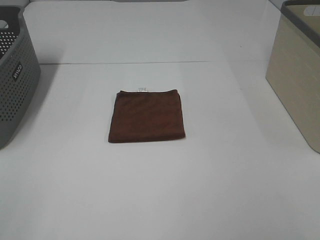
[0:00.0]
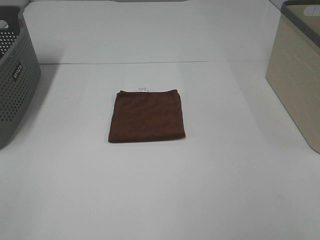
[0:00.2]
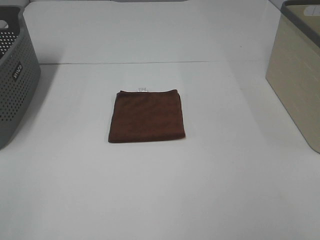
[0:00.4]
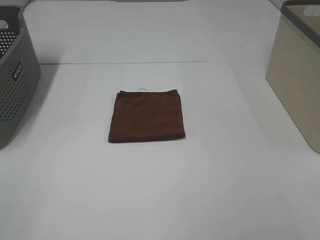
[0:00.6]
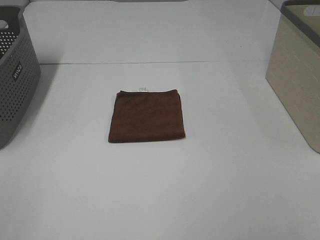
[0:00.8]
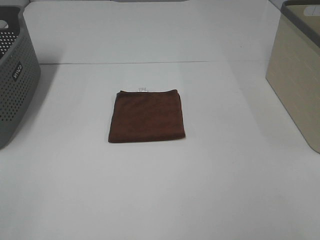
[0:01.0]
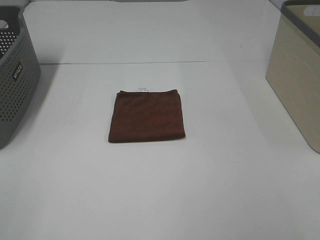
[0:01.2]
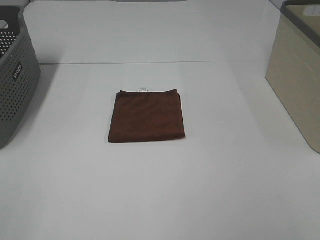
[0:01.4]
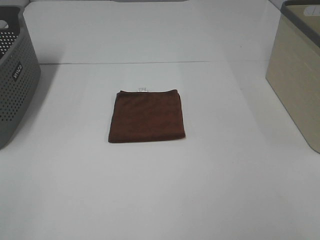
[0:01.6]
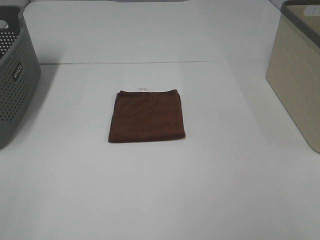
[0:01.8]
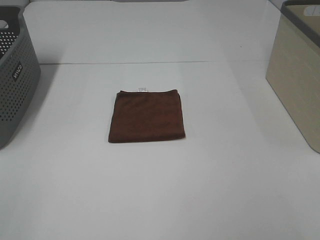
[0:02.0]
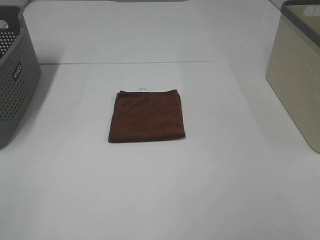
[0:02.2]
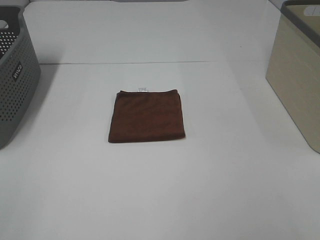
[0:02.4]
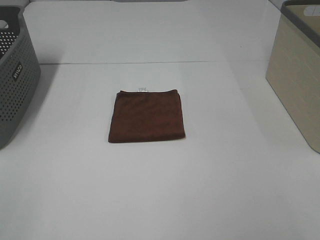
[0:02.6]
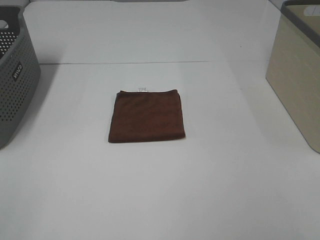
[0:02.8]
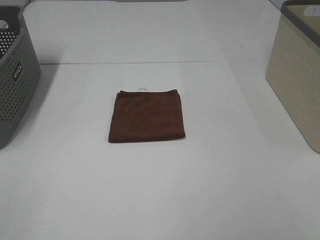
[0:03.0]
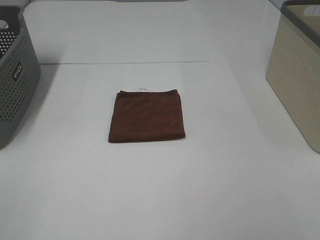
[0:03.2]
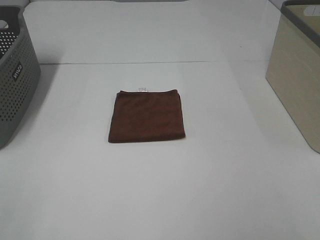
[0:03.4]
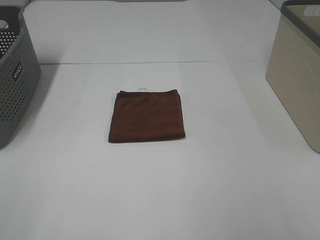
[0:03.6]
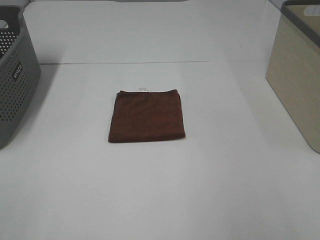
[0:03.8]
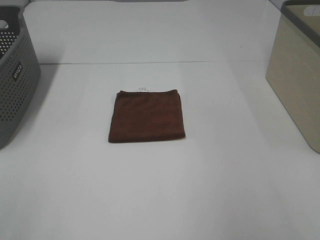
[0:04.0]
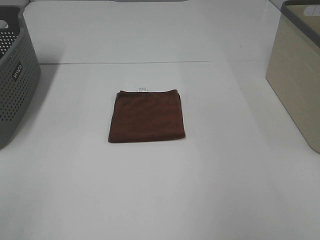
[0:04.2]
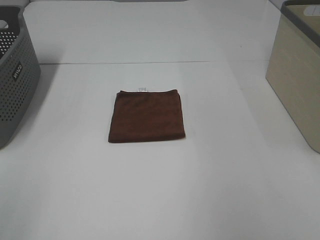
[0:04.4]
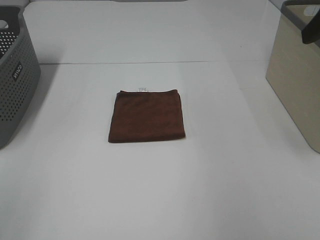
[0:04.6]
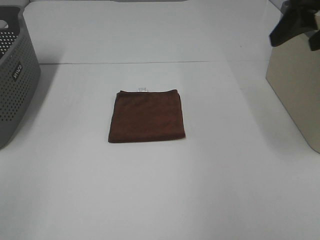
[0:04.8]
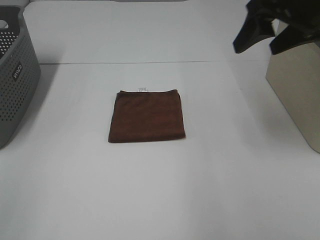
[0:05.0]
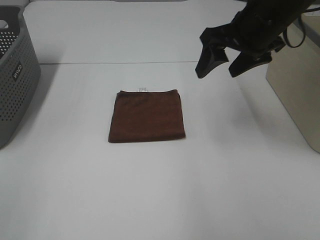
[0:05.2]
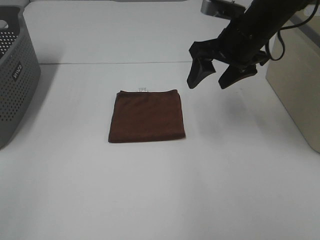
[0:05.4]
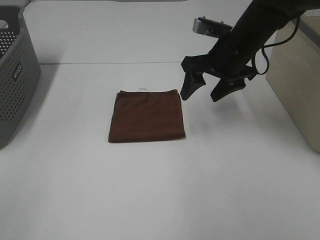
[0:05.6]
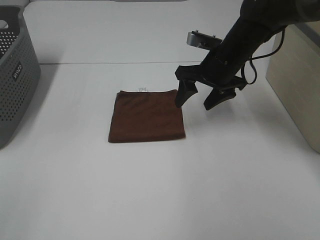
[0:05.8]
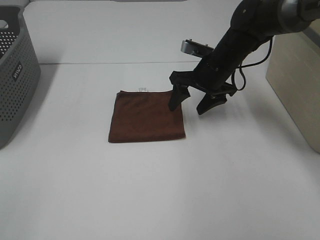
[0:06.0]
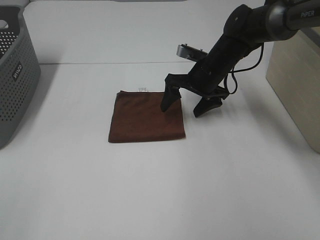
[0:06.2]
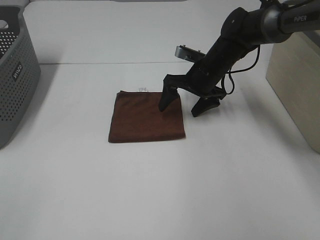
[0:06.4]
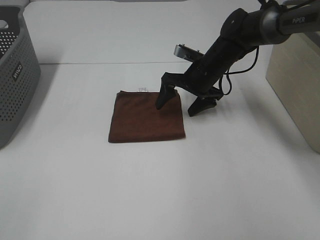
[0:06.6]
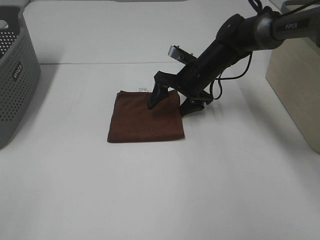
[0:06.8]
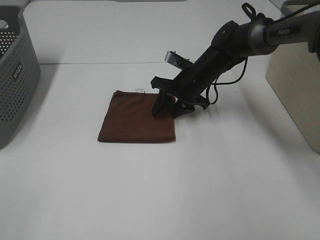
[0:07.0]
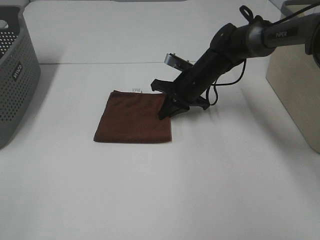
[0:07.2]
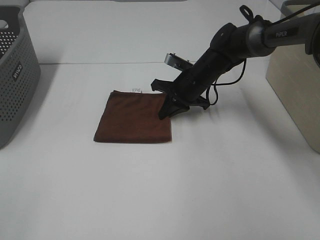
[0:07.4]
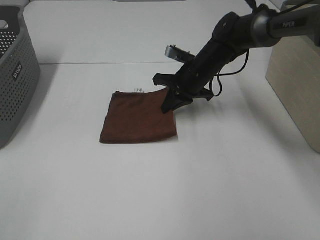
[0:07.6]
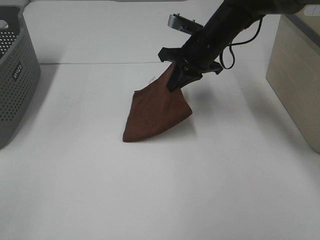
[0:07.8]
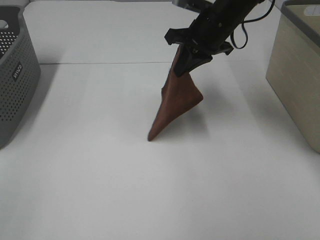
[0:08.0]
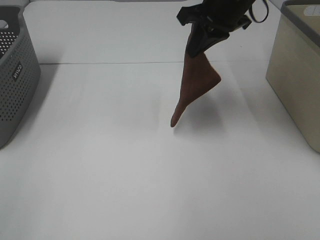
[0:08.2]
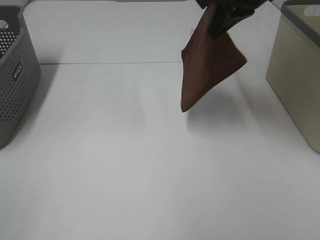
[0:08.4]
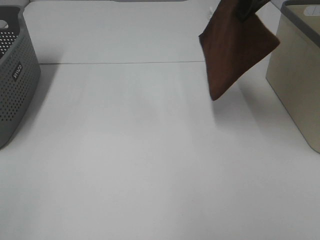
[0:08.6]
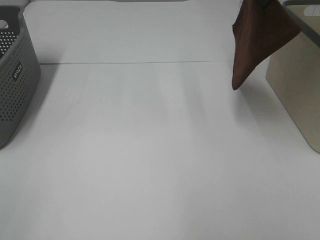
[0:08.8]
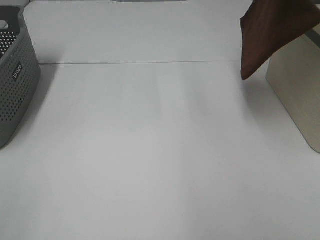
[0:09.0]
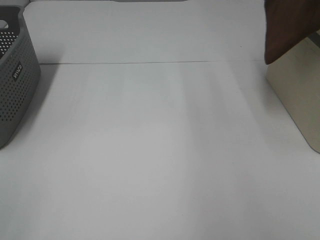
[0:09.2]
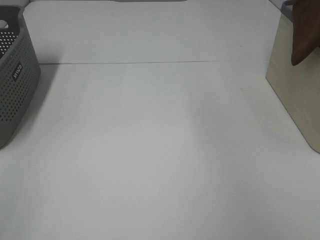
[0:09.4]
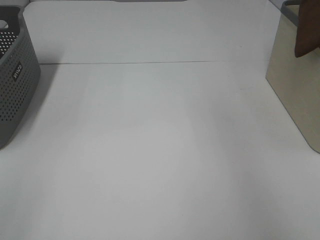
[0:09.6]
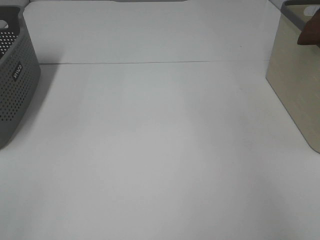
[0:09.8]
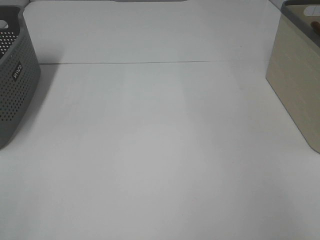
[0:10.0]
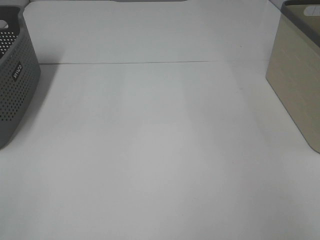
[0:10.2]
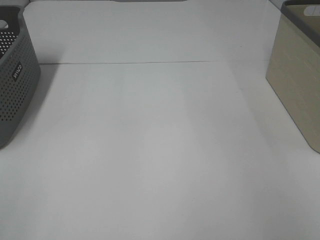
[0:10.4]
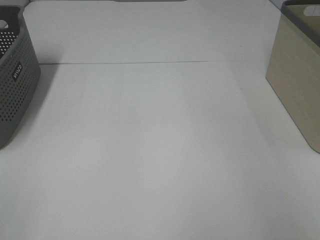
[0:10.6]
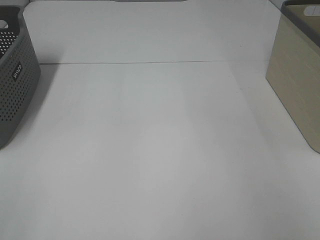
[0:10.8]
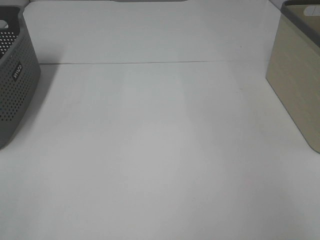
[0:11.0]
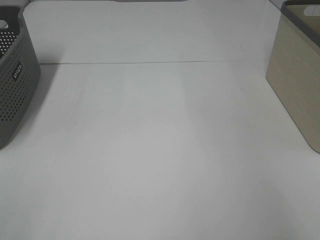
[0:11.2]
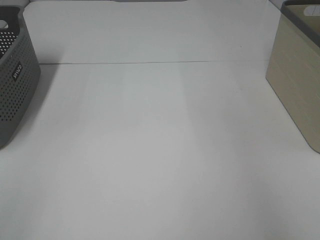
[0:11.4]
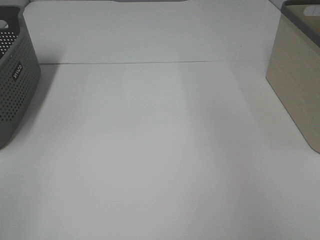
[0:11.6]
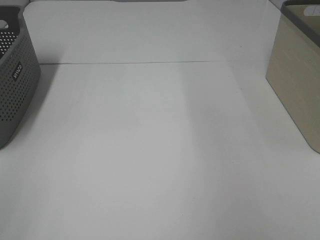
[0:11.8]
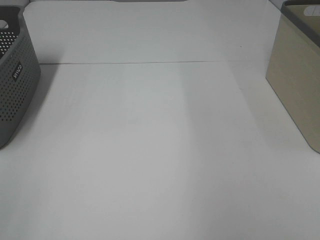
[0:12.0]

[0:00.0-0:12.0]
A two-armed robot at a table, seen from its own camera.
Step, 0:00.0 to 0:07.4: Right hand: grab the folded brown towel.
Step, 0:07.6 to 0:10.6: Right hand: place the brown towel in right basket.
0:00.0 to 0:03.0: Both grippers stay about where they are.
0:04.4 to 0:06.0: The right gripper shifts roughly 35 cm downward, forward and to the left.
0:06.0 to 0:07.6: The right gripper closes up.
0:07.6 to 0:09.0: The right gripper is displaced upward and to the right by roughly 30 cm.
0:09.0 to 0:10.4: The right gripper goes roughly 25 cm to the right and downward.

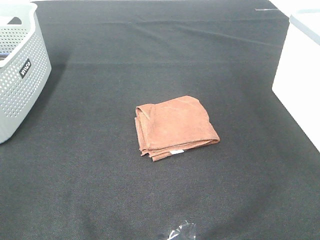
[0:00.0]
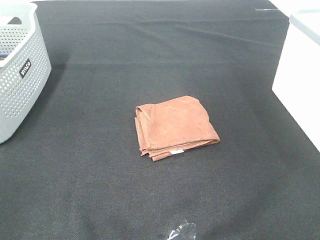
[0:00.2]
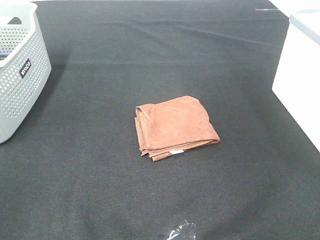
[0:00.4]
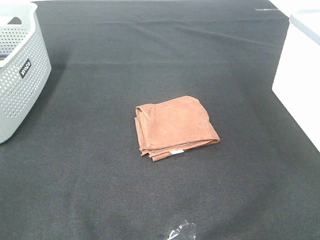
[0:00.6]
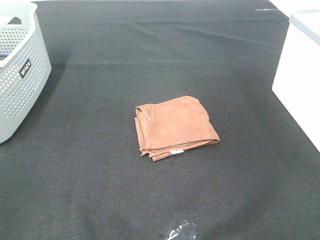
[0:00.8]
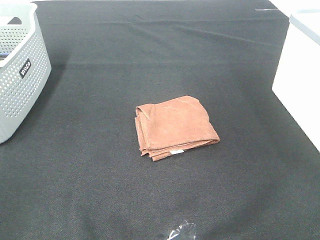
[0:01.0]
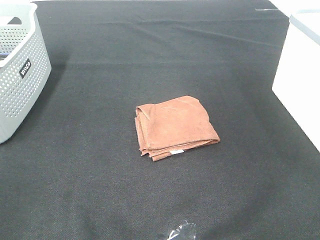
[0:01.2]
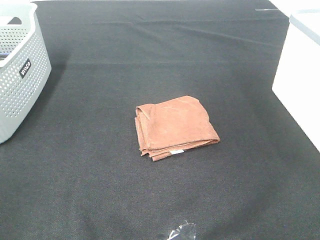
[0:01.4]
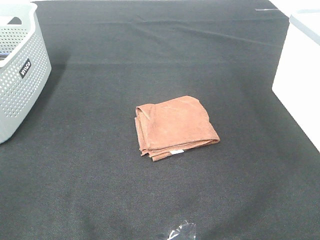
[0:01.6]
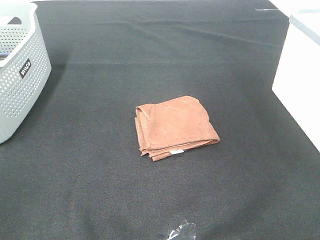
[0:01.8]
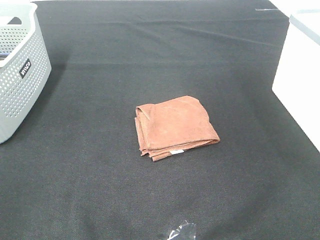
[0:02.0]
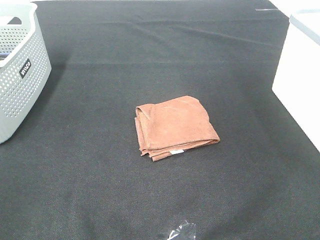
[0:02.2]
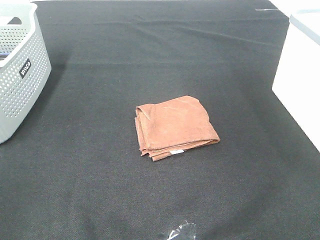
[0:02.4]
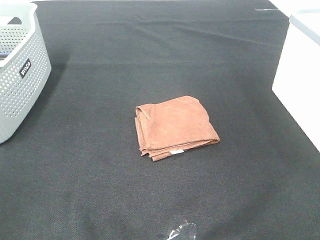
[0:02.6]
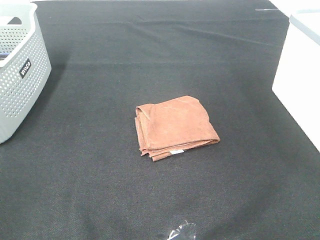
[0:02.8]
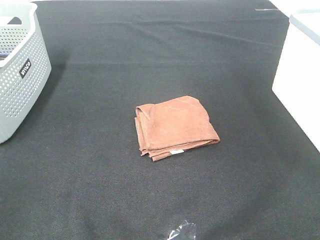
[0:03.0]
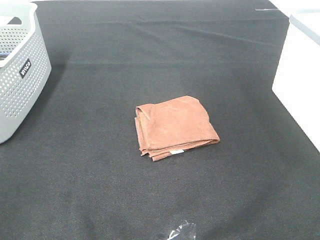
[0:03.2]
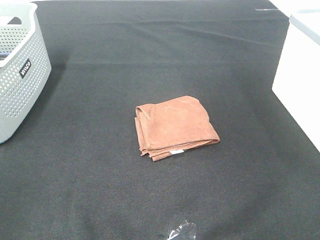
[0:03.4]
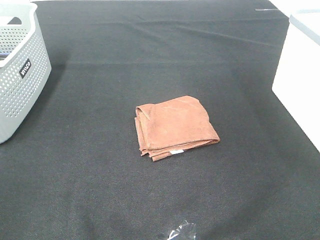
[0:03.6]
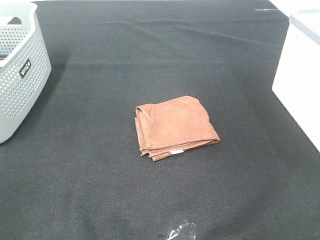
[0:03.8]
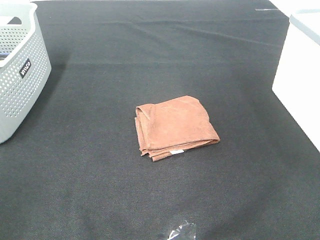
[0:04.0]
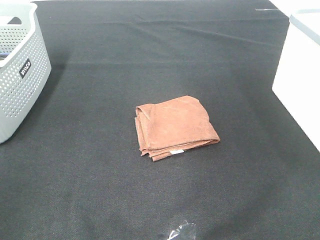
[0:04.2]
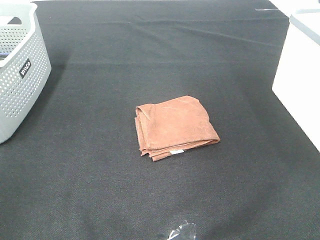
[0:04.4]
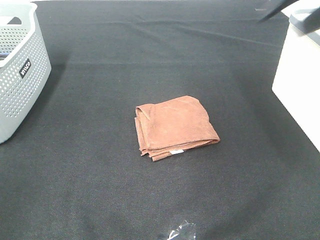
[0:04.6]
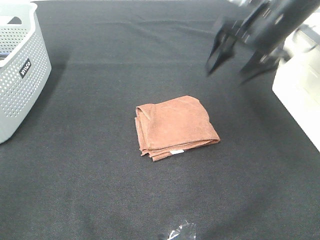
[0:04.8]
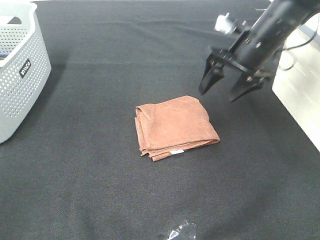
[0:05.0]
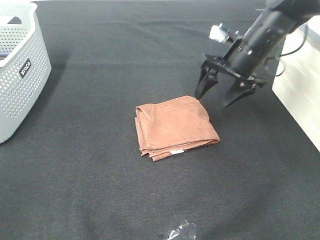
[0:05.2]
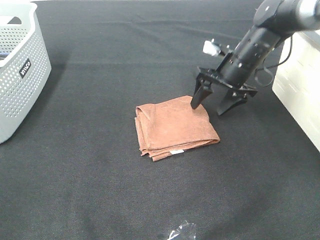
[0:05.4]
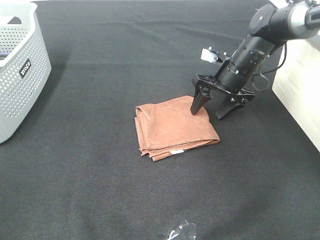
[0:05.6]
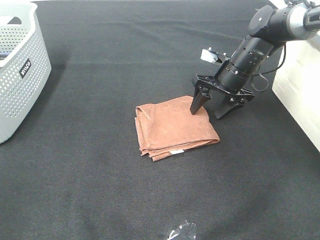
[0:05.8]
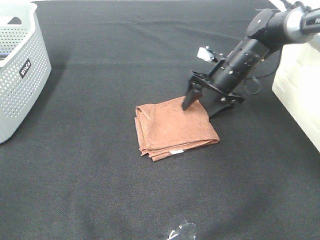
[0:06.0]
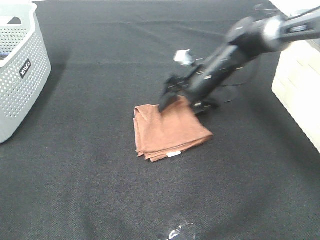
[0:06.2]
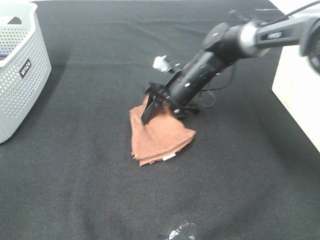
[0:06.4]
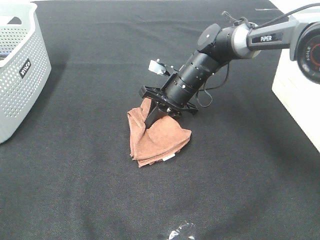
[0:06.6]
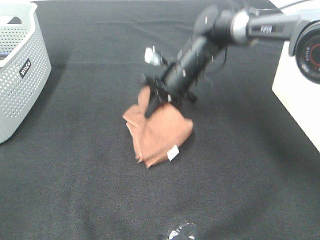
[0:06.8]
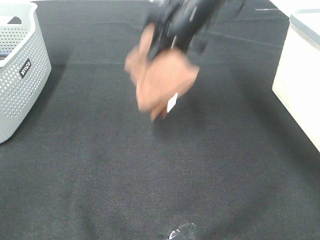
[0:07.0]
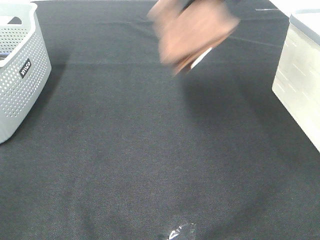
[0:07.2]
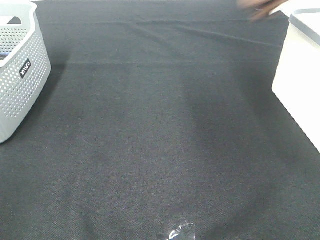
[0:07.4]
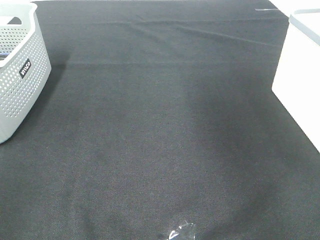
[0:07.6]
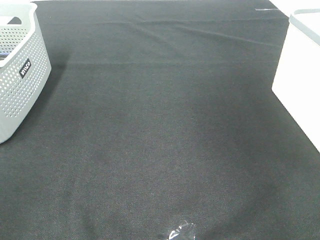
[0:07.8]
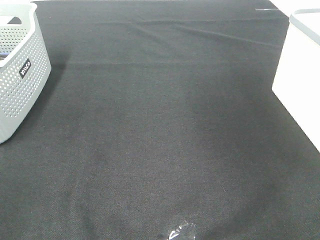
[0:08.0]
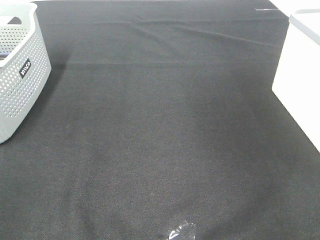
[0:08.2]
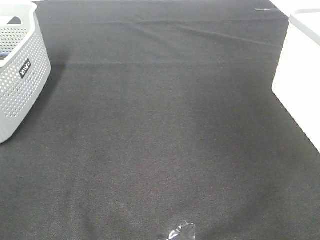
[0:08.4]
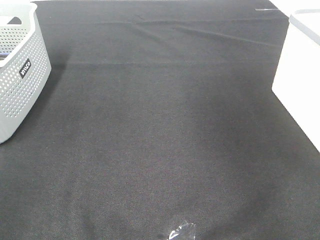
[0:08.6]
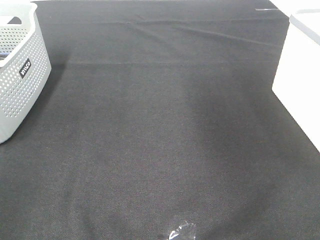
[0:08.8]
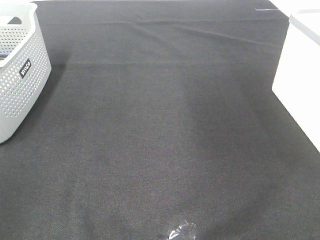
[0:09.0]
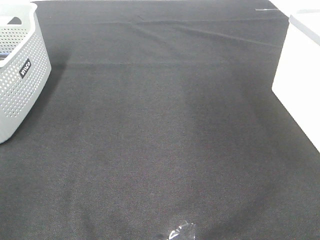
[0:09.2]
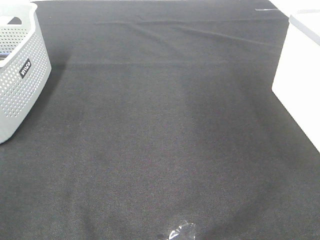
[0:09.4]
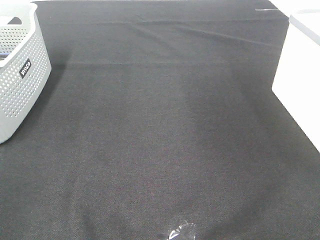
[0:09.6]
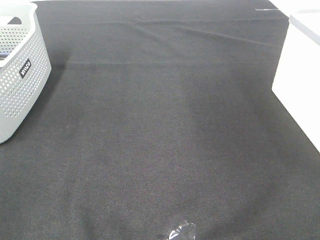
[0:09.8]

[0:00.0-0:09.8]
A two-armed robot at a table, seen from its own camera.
Step, 0:00.0 to 0:06.6: Right hand: grab the folded brown towel.
Step, 0:06.8 to 0:08.4: Right hand: place the brown towel in right basket.
0:00.0 to 0:02.8: Neither gripper changes place.
0:04.2 to 0:05.6: The right gripper moves downward, forward and to the left, approximately 40 cm.
0:05.6 to 0:07.0: The right gripper heads upward and to the left, covering roughly 15 cm, and closes.
0:07.0 to 0:08.4: The right gripper moves to the right, about 35 cm, and opens.

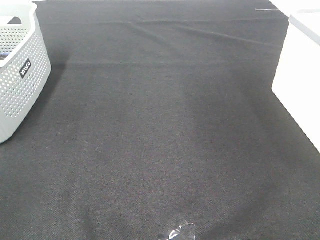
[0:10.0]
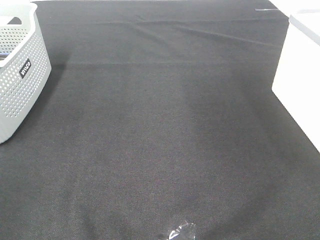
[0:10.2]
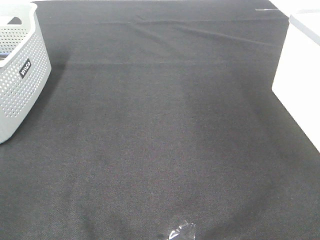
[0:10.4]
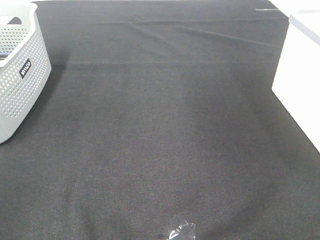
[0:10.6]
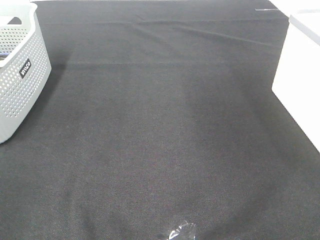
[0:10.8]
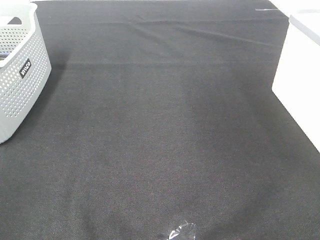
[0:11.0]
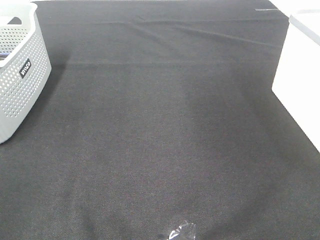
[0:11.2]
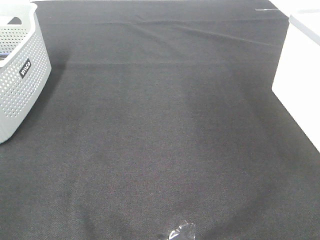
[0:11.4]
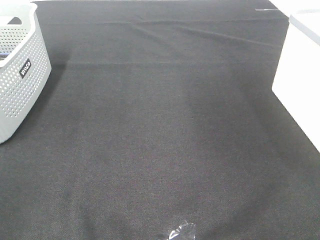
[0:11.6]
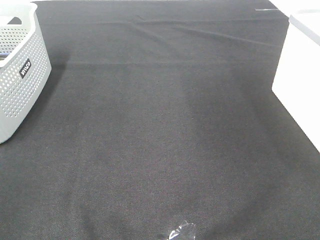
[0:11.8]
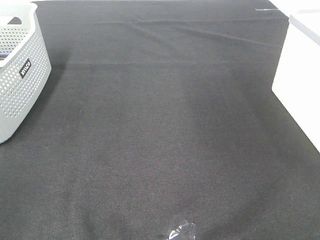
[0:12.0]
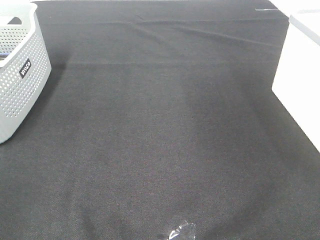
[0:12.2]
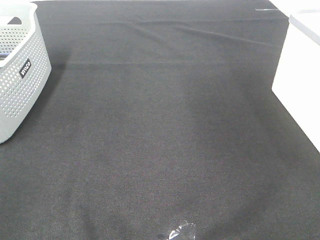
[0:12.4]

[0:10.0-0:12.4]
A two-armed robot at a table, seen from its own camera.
0:10.0 to 0:12.4: Both grippers stay put.
